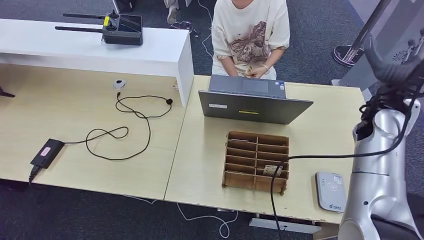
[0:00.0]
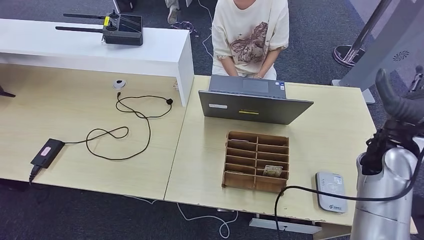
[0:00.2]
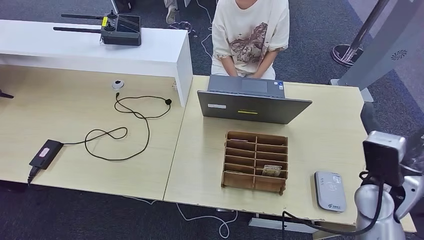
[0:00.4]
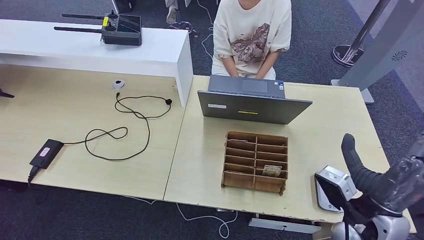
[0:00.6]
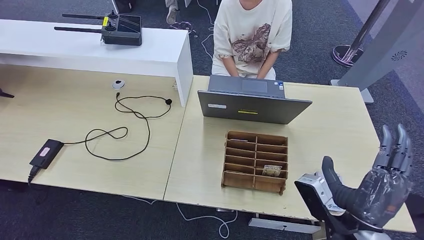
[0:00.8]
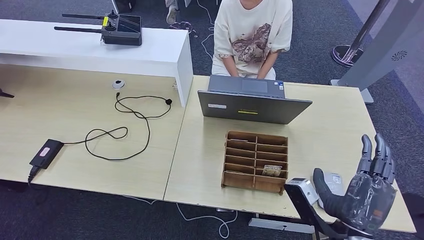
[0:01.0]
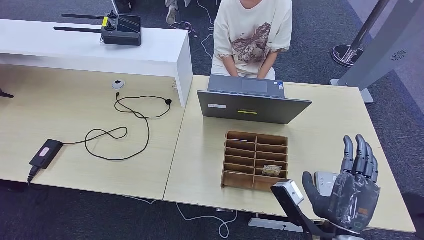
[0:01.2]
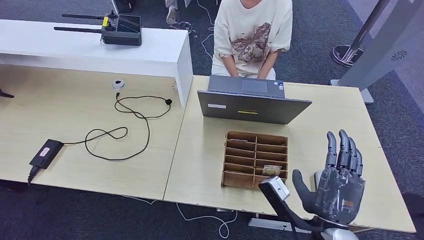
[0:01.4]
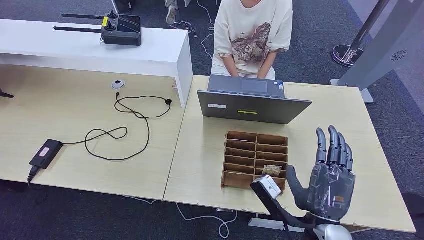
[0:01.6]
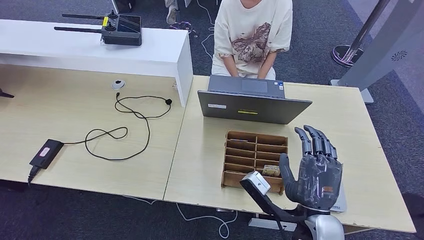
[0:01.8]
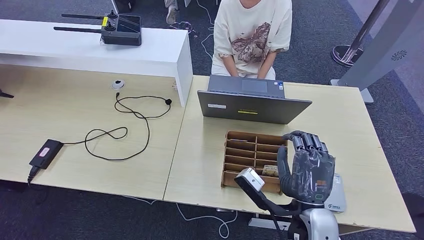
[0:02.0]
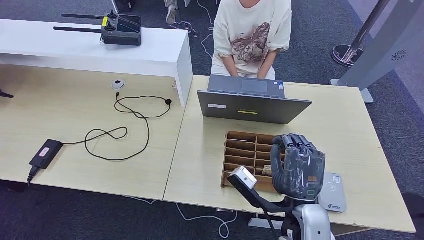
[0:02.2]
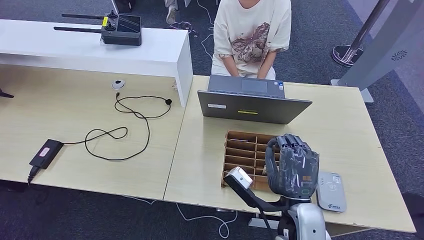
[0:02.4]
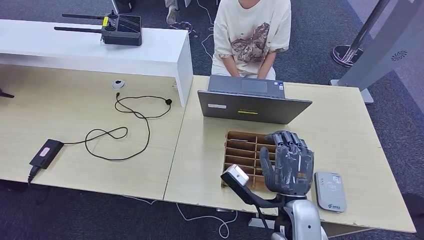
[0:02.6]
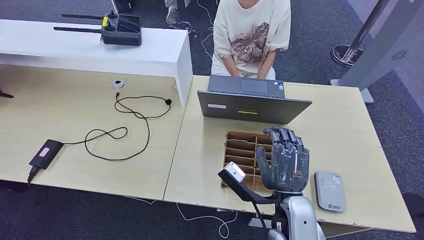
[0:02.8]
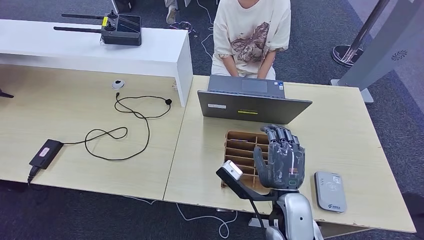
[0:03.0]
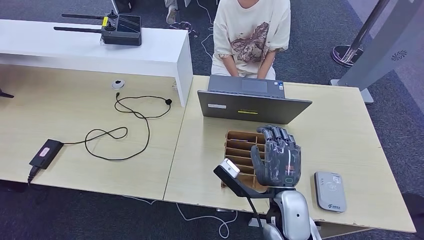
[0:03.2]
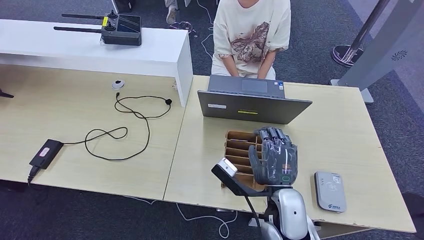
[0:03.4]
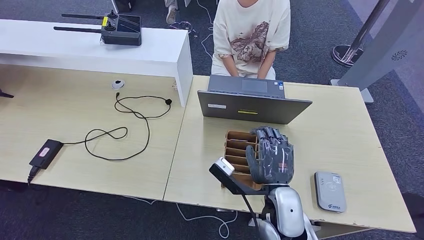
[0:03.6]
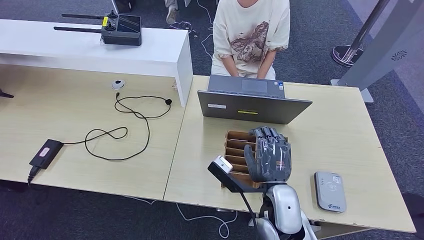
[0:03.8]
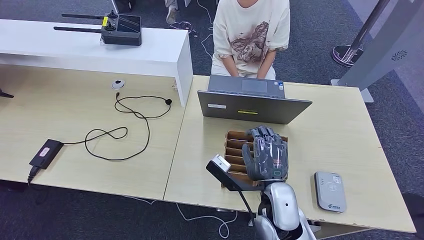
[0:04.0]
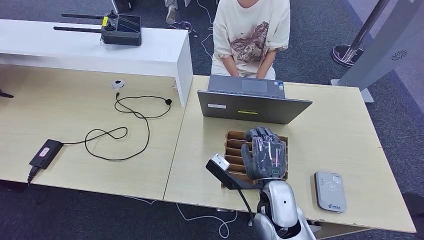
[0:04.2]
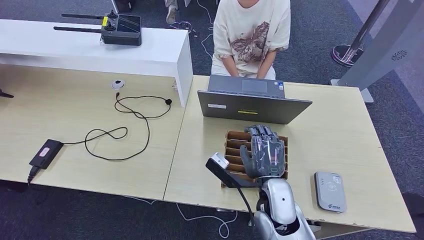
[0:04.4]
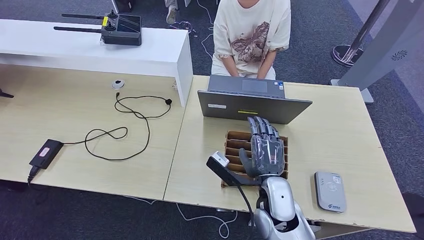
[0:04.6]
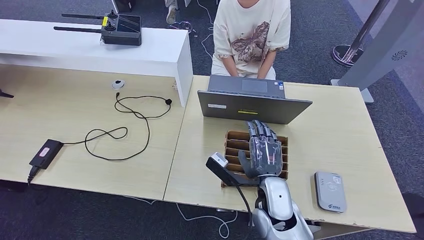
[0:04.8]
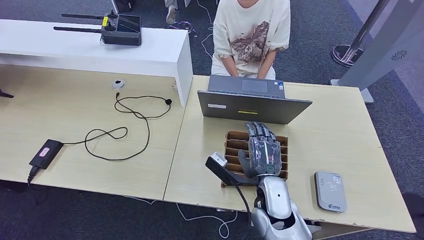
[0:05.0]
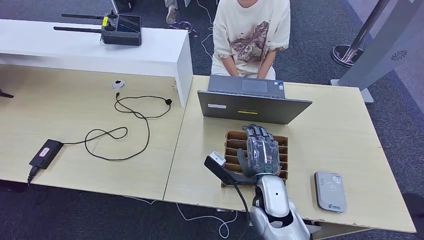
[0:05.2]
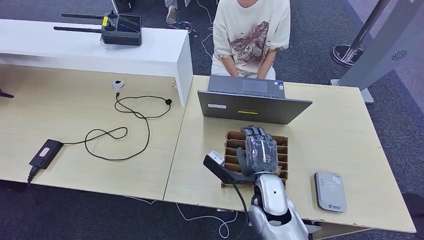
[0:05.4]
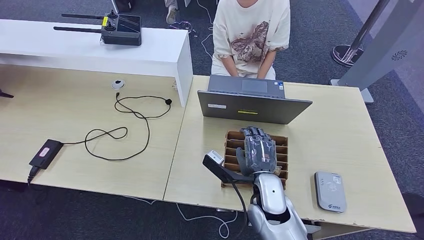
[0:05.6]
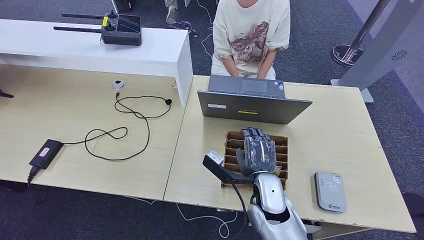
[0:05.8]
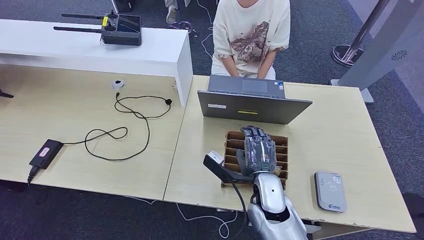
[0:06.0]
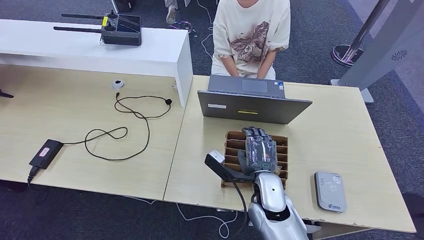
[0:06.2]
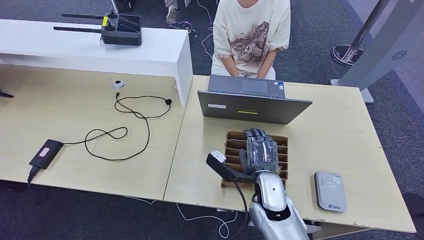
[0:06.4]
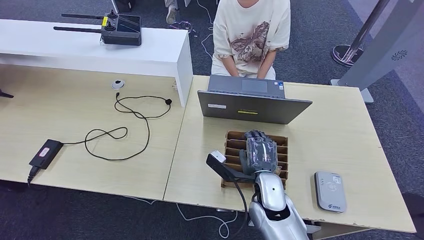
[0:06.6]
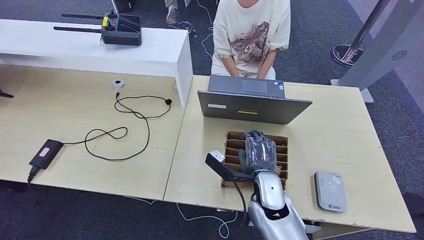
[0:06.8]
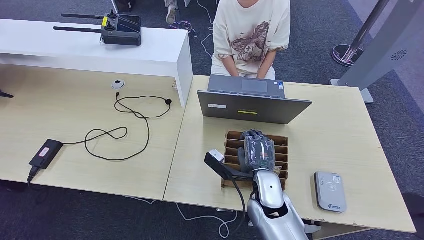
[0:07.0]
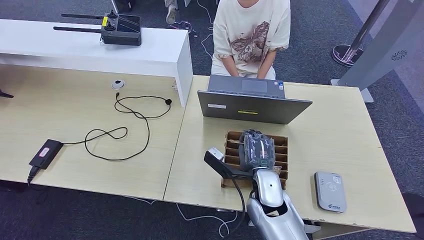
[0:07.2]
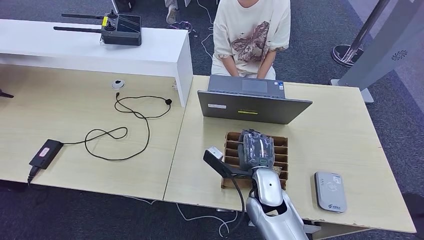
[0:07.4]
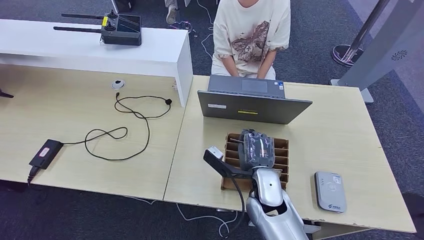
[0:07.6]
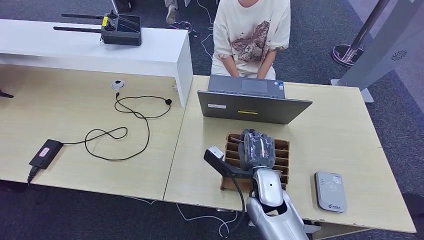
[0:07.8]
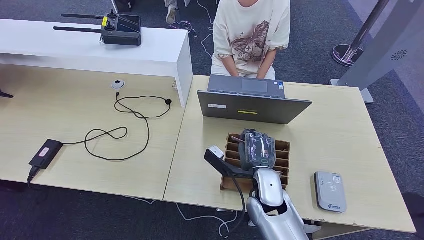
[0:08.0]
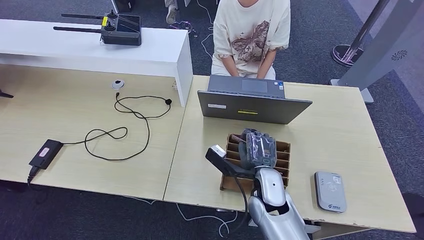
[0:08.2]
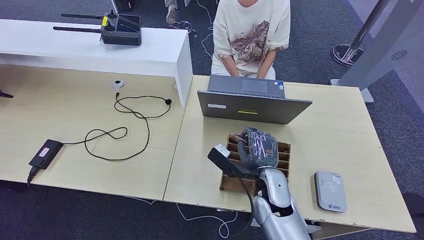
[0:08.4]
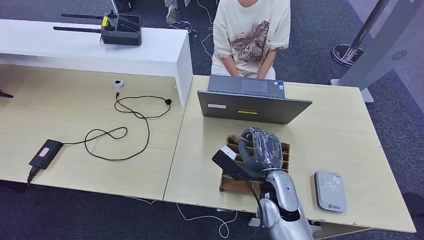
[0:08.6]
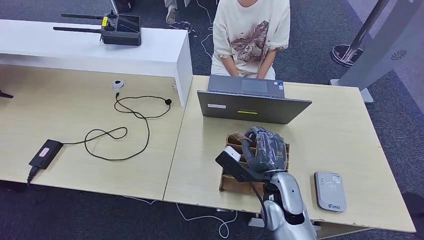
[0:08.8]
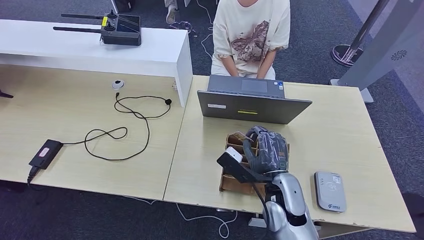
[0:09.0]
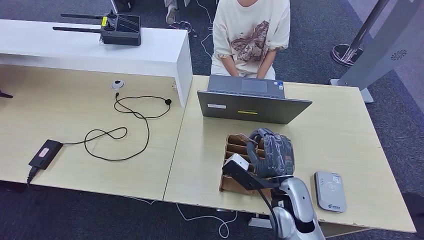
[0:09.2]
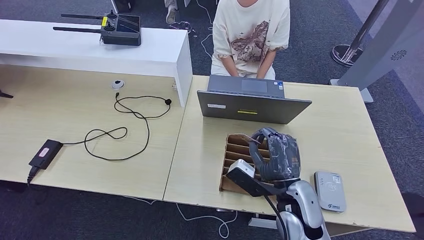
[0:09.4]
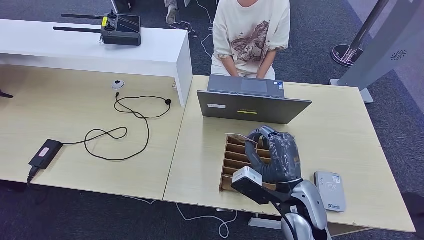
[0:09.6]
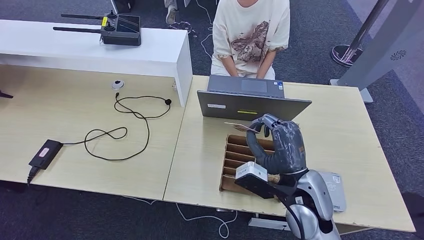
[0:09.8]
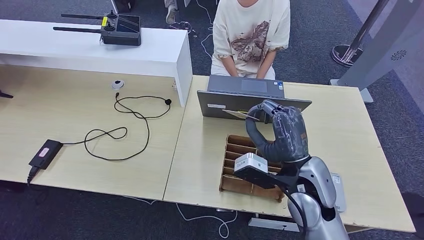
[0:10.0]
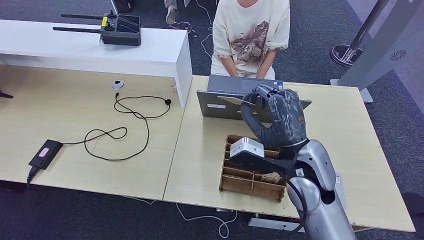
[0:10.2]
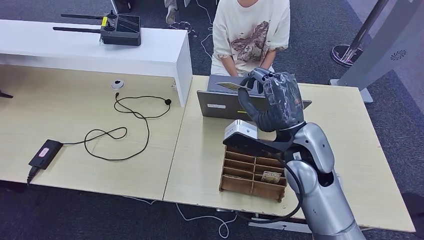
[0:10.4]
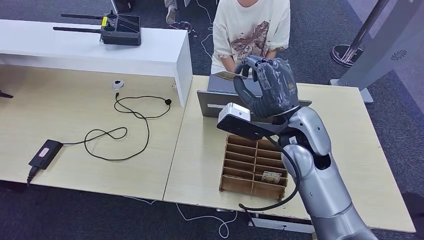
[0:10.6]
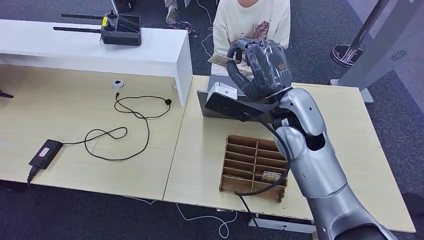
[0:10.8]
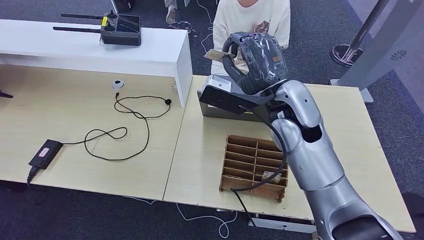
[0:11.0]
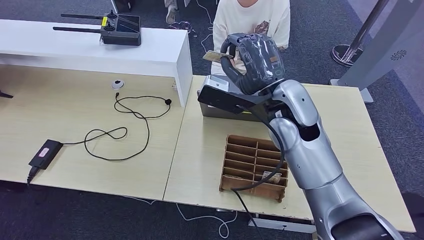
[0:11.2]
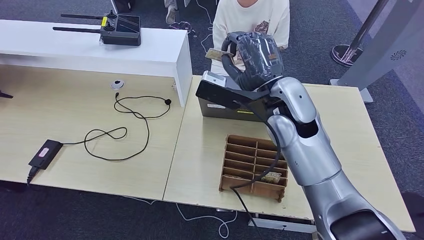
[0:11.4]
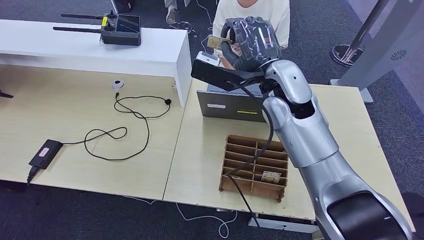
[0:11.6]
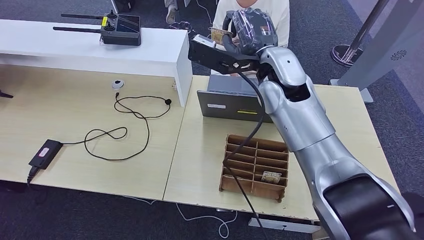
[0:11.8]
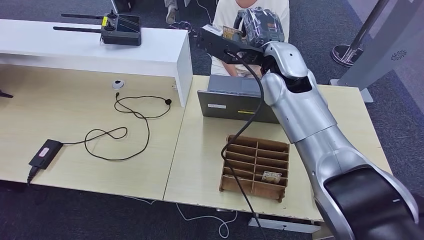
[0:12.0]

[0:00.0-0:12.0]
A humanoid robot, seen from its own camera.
Step, 0:07.0 to 0:10.8: Pick up the room key from the key card box.
0:00.0 to 0:01.6: The right hand goes about 35 cm backward, to the left and downward.
0:01.6 to 0:03.0: The right hand shifts by approximately 5 cm.
0:03.0 to 0:04.4: The hands stay close to where they were, moving slightly.
0:04.4 to 0:06.0: The hands make only small movements.
0:06.0 to 0:07.6: Neither hand changes place.
0:09.0 to 0:10.4: The right hand moves upward and forward, roughly 15 cm.
0:10.4 to 0:12.0: The right hand moves forward and upward, some 15 cm.

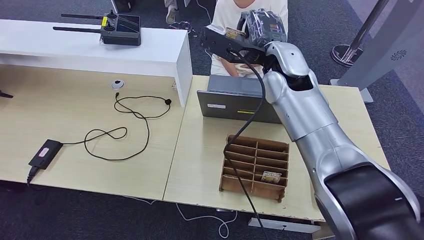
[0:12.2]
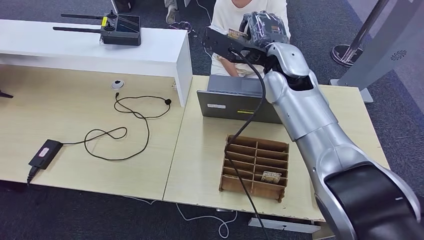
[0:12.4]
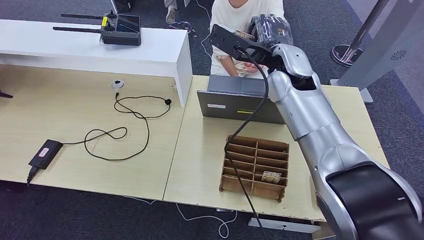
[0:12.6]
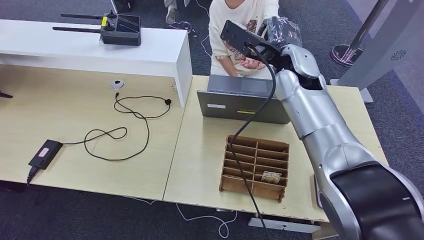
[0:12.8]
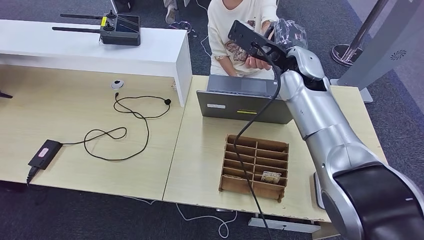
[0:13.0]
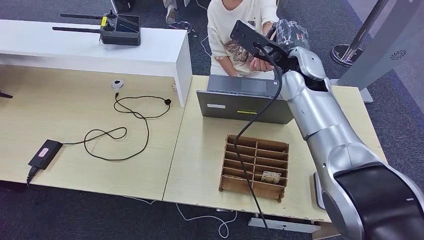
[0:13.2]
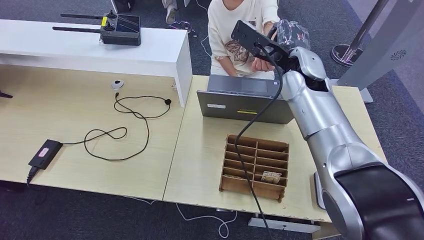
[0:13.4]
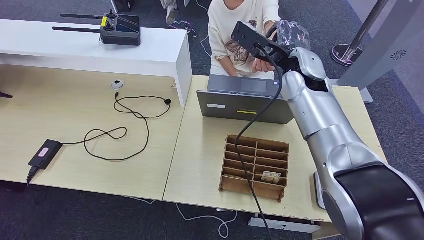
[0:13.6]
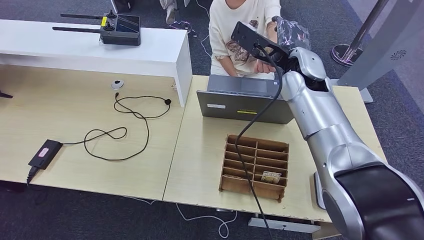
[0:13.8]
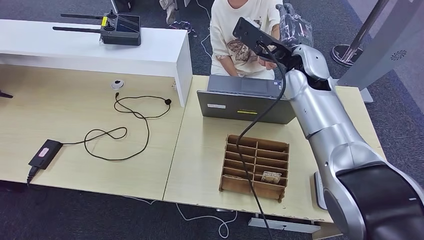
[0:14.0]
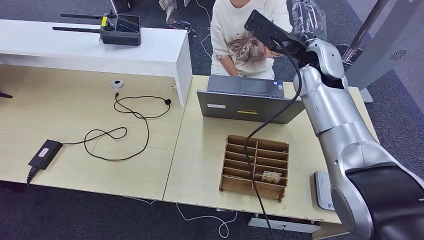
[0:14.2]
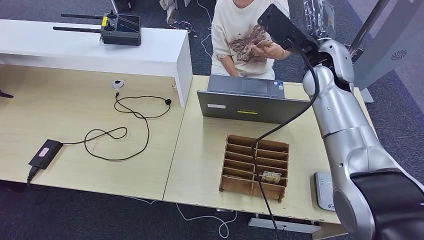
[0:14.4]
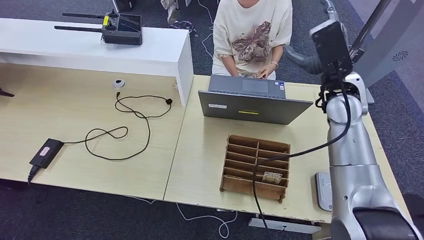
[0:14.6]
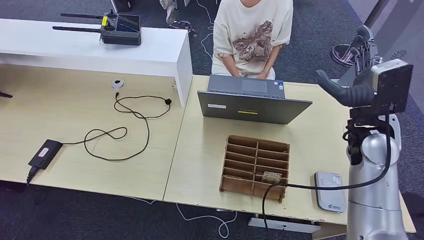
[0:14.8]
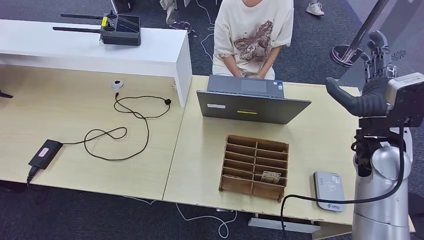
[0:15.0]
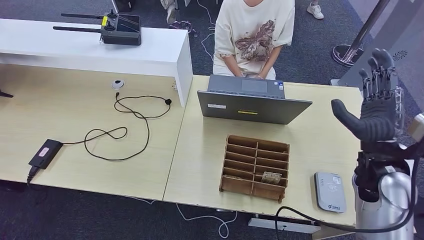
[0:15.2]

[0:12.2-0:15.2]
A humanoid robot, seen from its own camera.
Step, 0:12.2 to 0:15.2: Hand the room key to the person.
0:12.2 to 0:13.8: The hands move only a little.
0:13.8 to 0:15.2: The right hand moves backward, to the right and downward, approximately 20 cm.
